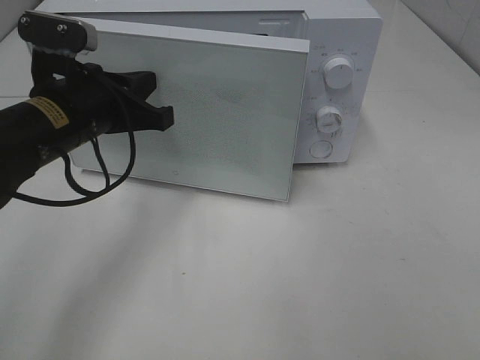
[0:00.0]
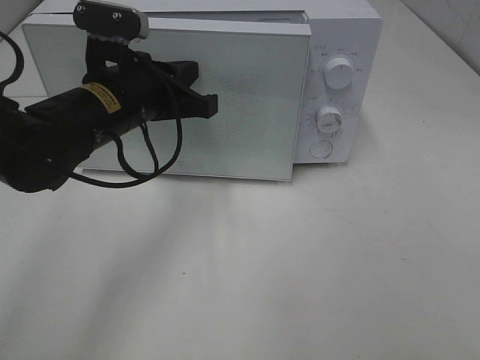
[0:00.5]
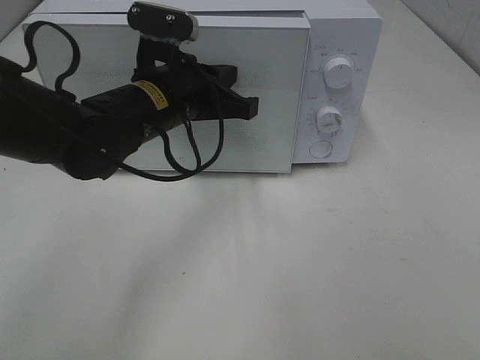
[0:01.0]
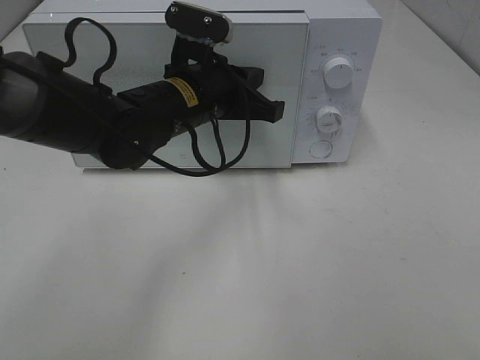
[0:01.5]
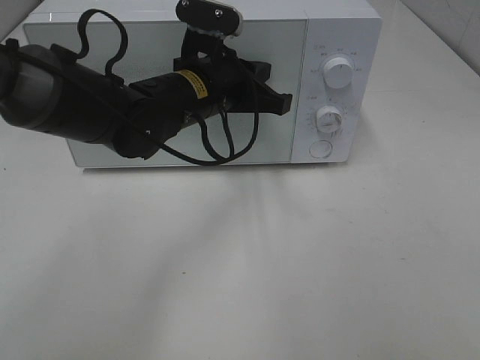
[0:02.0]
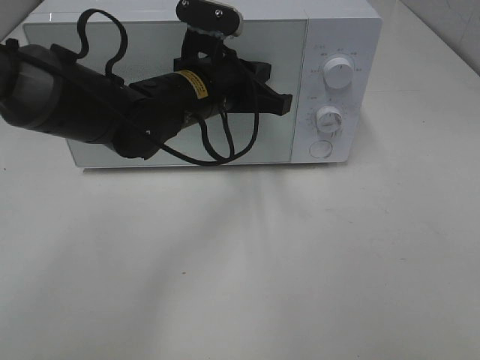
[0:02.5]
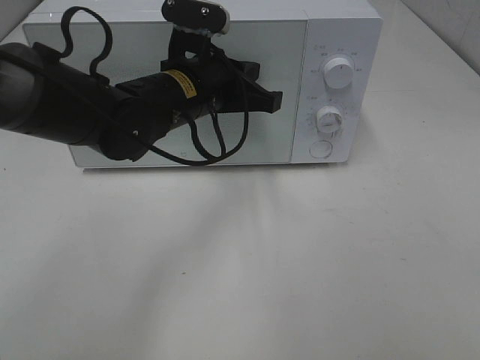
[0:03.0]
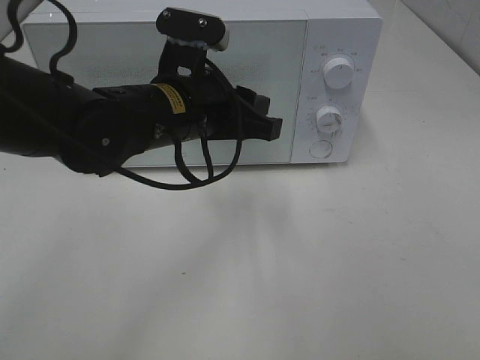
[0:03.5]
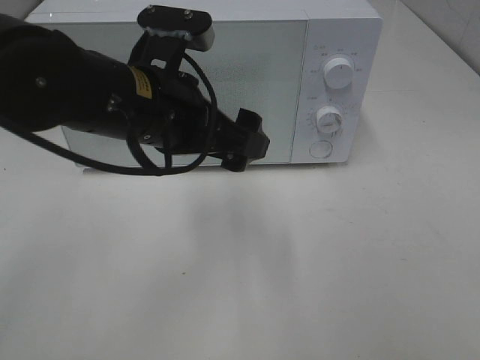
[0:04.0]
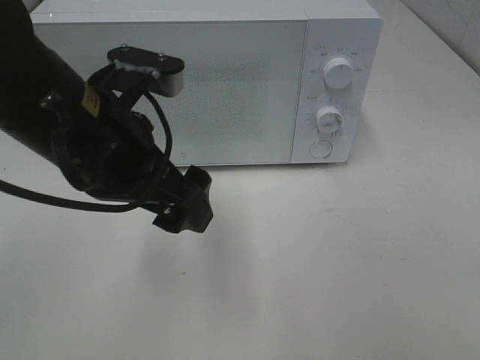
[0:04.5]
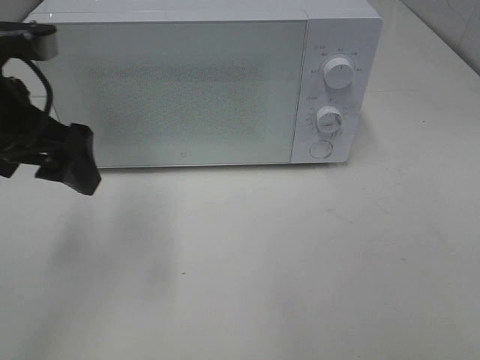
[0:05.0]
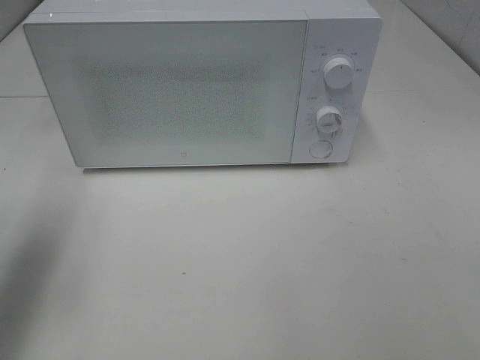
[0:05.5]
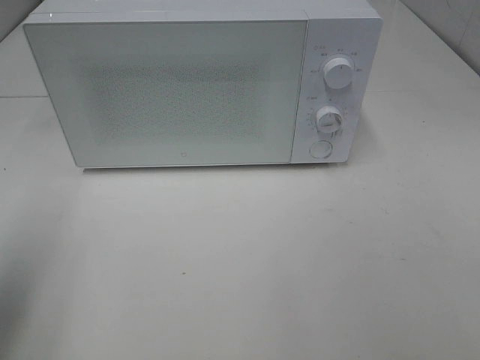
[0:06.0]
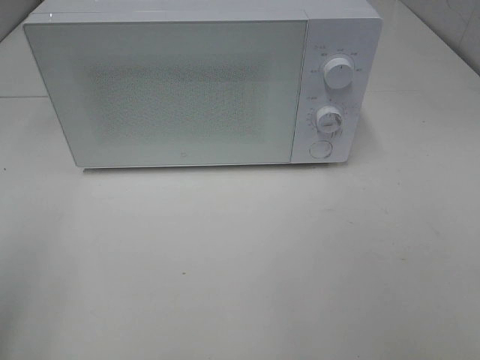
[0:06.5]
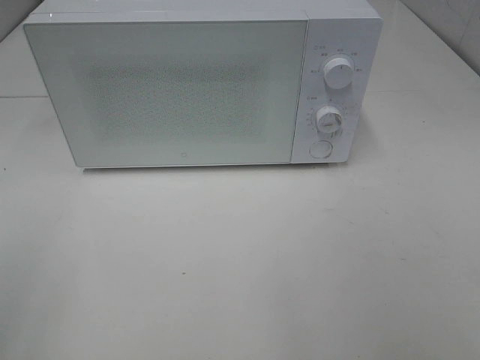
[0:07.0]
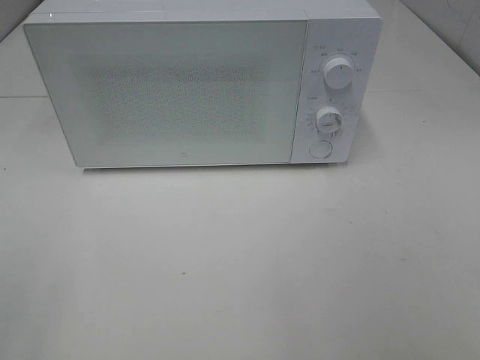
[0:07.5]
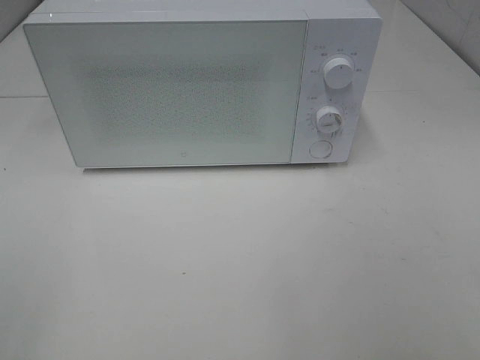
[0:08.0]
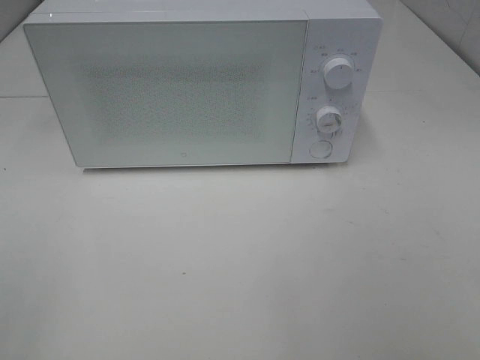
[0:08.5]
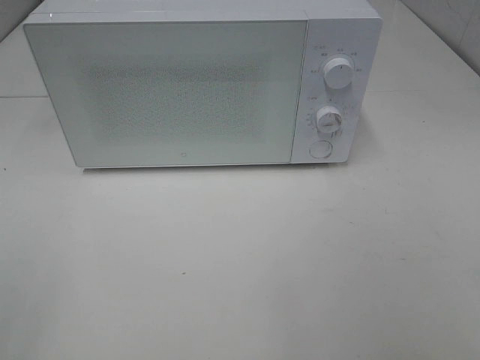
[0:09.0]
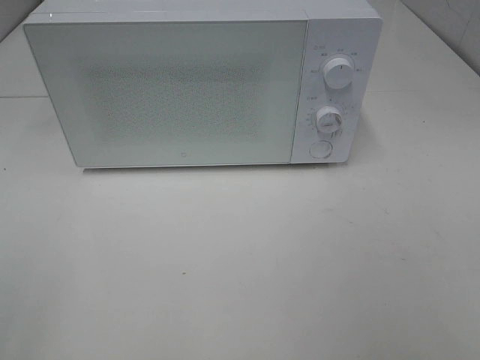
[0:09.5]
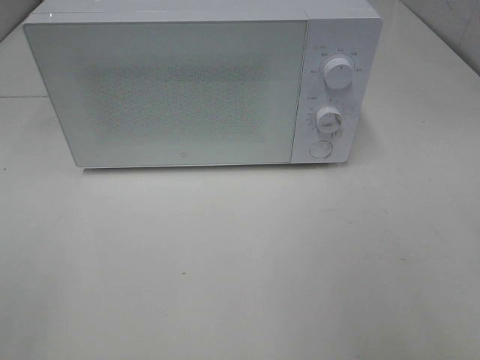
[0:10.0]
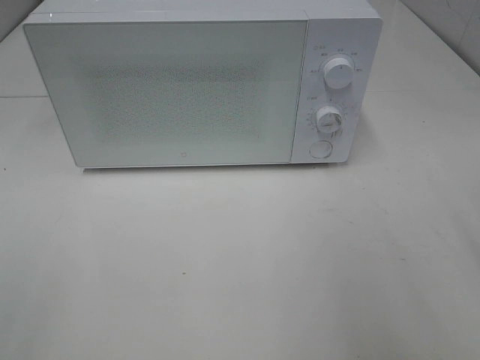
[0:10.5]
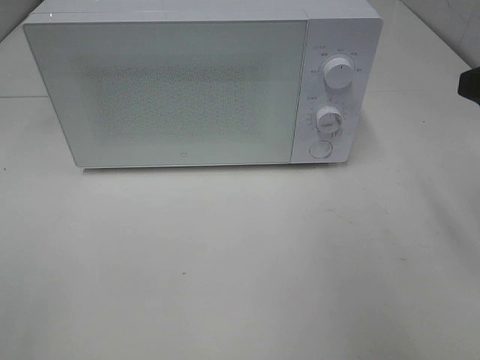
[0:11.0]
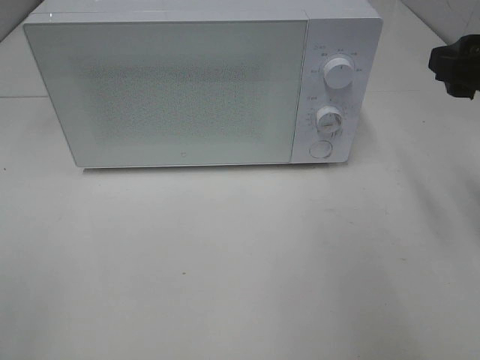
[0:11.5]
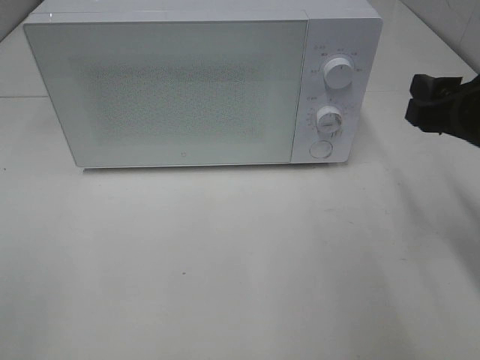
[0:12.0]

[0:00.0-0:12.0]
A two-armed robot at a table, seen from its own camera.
Task of the whole recording: Heat Sandwich.
Step, 0:00.0 to 0:03.0: Left hand: close the microwave door.
0:00.0 to 0:02.0: The left gripper goes some 15 cm to the right and forward.
0:02.0 to 0:04.0: The left gripper travels backward and upward by approximately 10 cm, and opens.
0:04.0 to 0:06.0: The left gripper moves to the left and backward, roughly 25 cm.
0:06.0 to 0:08.0: The left gripper heads backward, covering about 15 cm.
0:10.0 to 0:12.0: The right gripper moves forward and downward, about 20 cm.

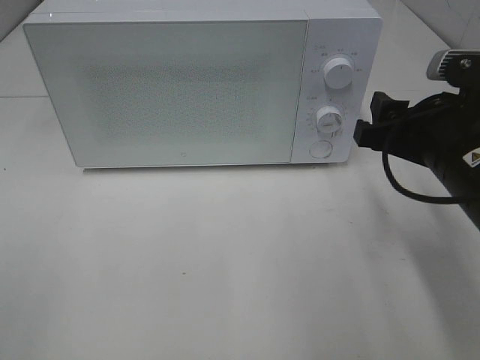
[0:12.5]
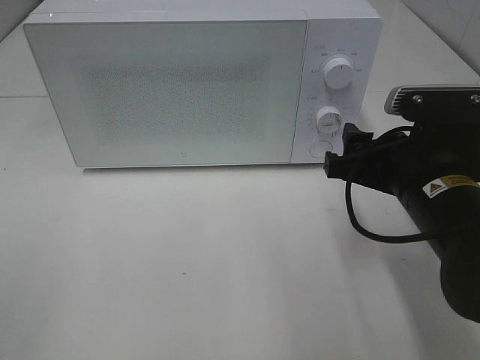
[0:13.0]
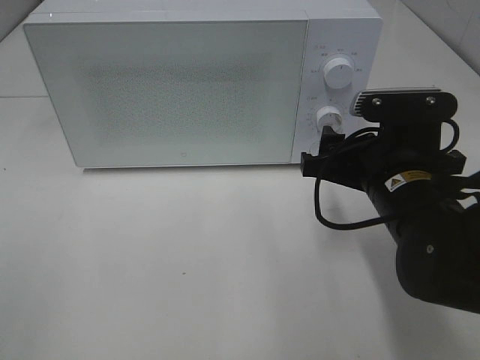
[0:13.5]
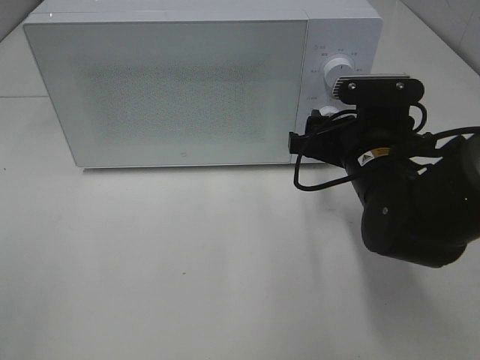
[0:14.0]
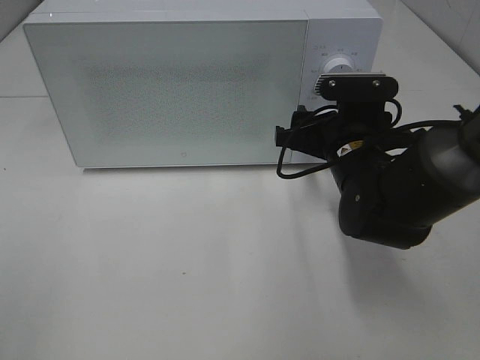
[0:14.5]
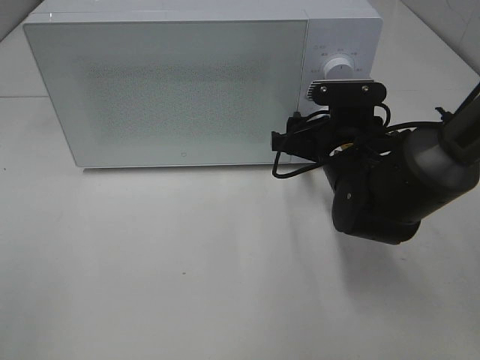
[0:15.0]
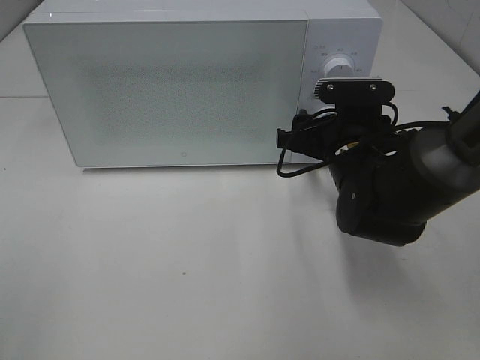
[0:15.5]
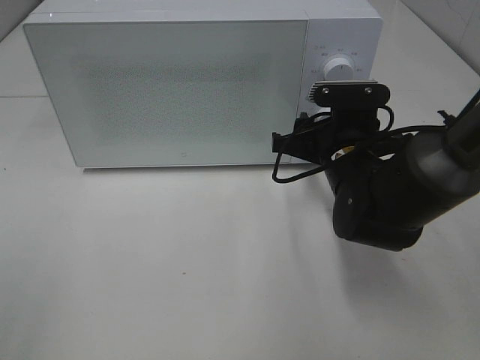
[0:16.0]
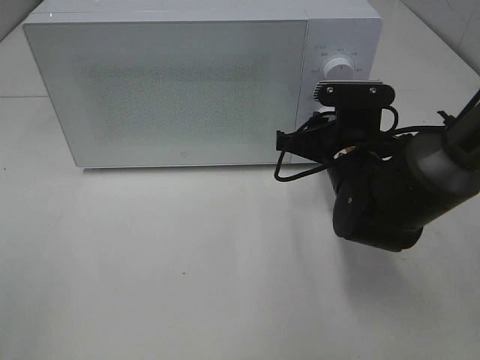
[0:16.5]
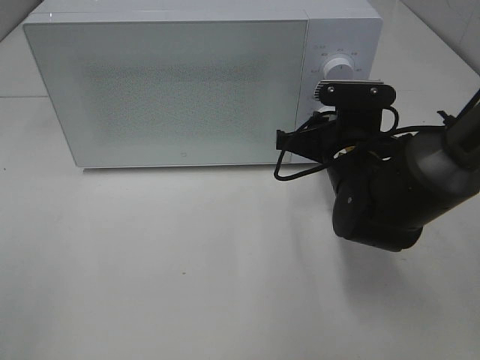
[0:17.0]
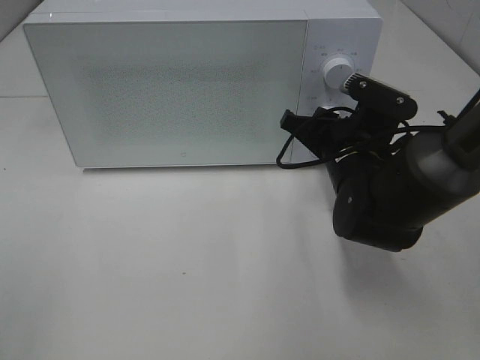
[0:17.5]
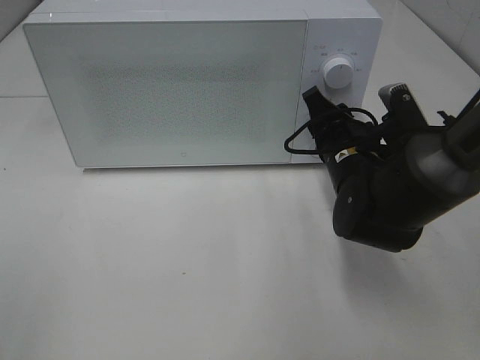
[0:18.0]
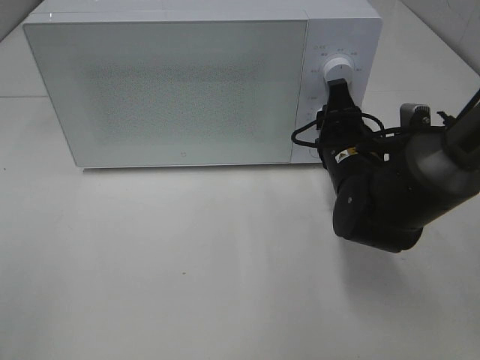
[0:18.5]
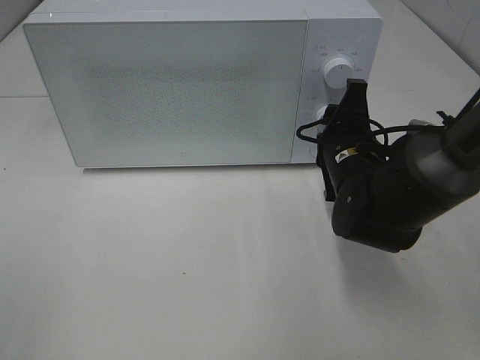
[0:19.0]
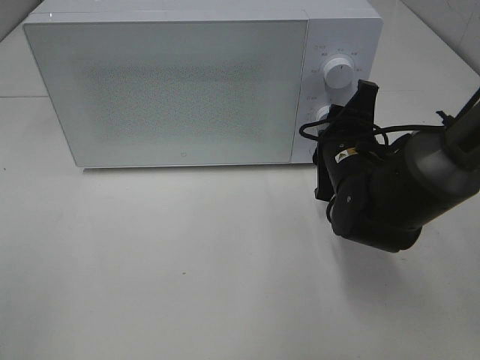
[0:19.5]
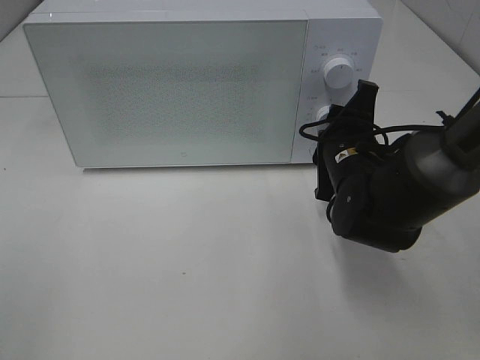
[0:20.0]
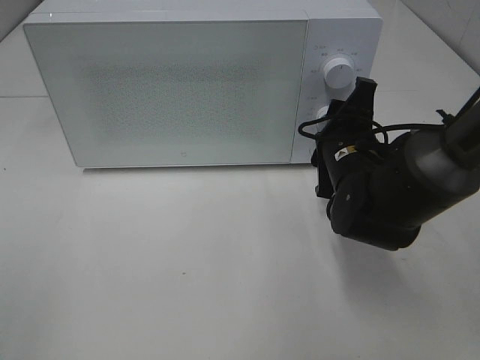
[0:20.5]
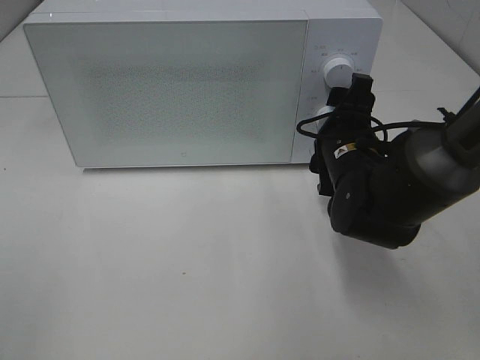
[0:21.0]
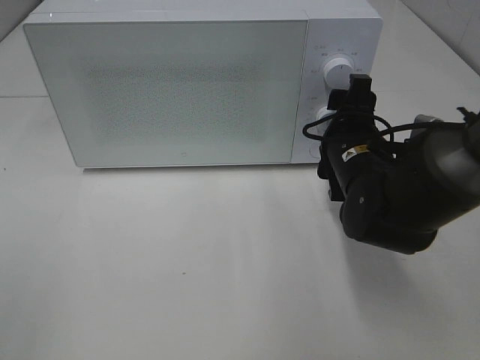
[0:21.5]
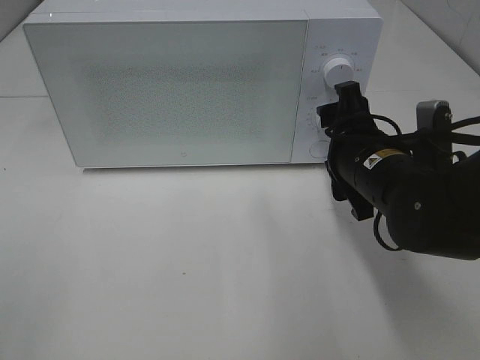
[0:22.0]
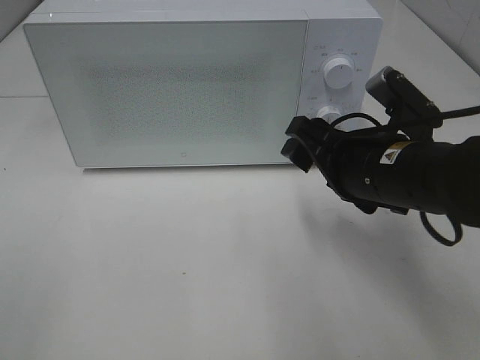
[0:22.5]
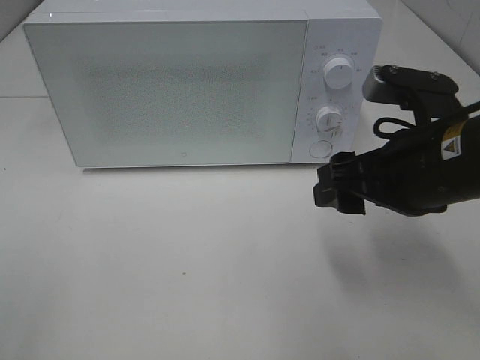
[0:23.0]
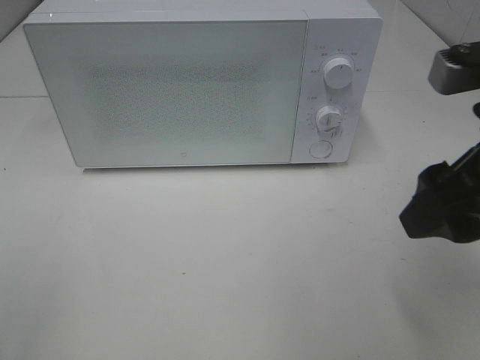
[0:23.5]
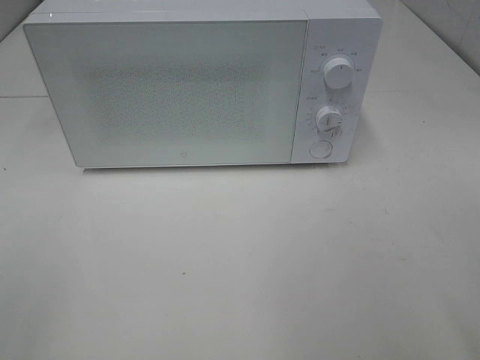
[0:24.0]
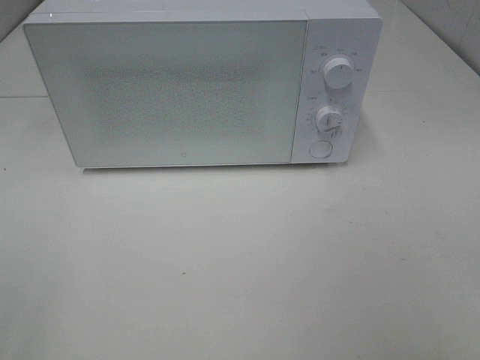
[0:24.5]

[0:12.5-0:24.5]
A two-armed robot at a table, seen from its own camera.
Task of the whole recording: Heat Sandwich.
Step, 0:12.5 to 0:21.0: Right hand: twist timer button.
0:12.5 to 0:14.5: The right gripper moves forward, to the left and downward, roughly 15 cm.
0:14.5 to 0:16.5: The right gripper closes its fingers.
0:20.5 to 0:22.5: The right gripper heads backward and upward, covering some 10 cm.
0:22.5 to 0:24.5: The right gripper shifts roughly 30 cm backward, to the right and upward.

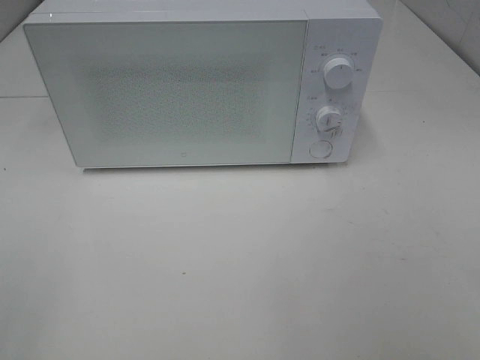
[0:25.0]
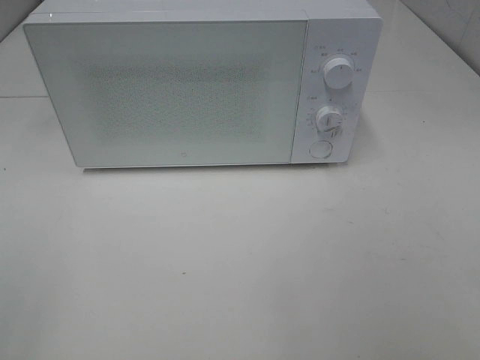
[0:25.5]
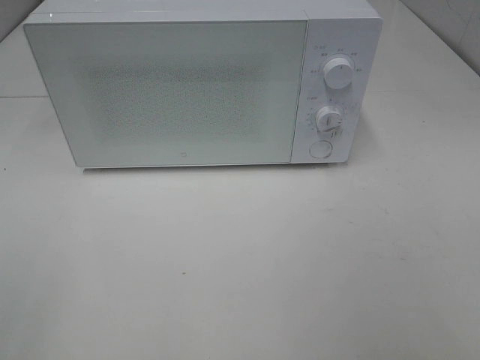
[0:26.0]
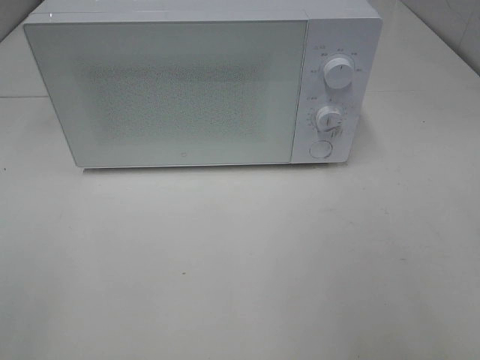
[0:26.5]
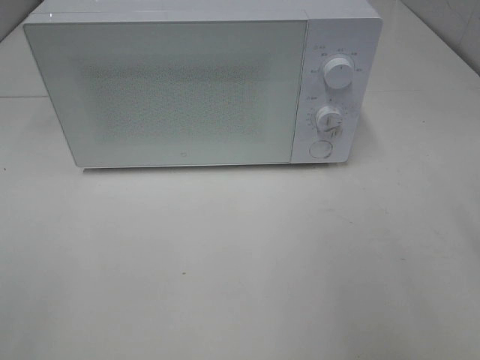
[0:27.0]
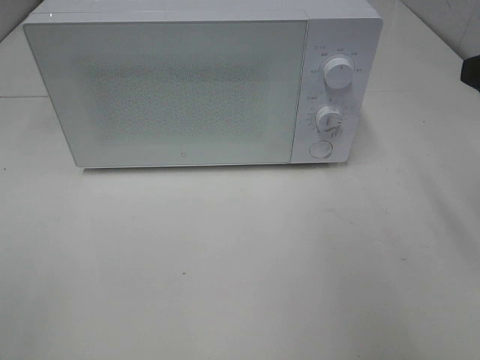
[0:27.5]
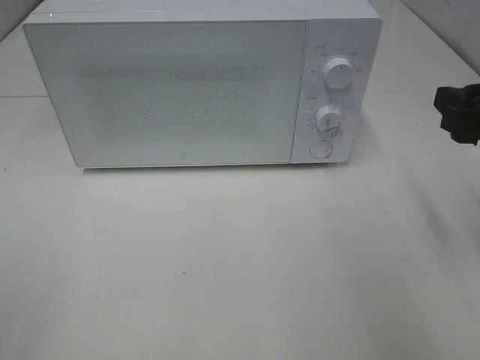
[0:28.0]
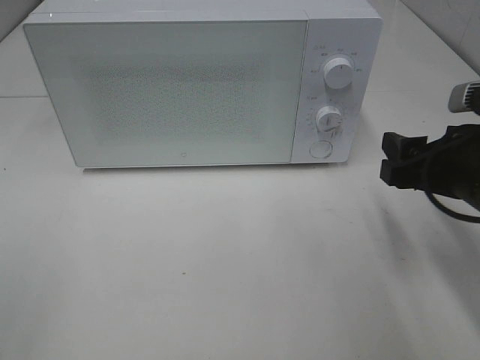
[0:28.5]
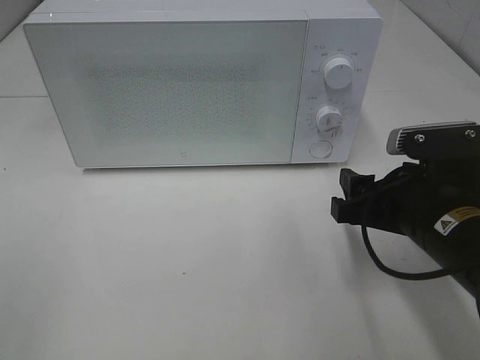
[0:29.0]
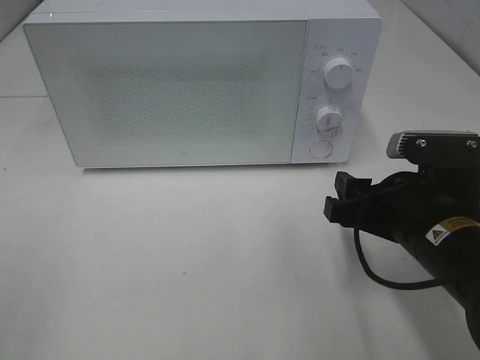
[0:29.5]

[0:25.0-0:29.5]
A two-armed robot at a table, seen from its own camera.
Task of the whole recording: Heat Sandwich.
0:27.0 to 0:29.5: The right gripper goes some 20 cm downward and to the left.
